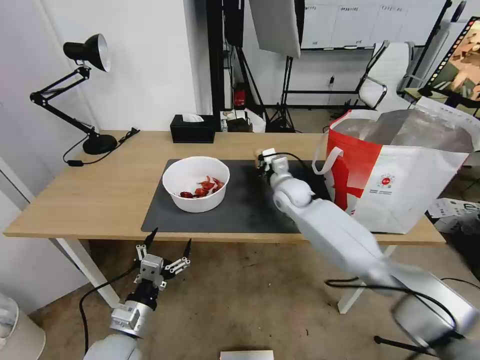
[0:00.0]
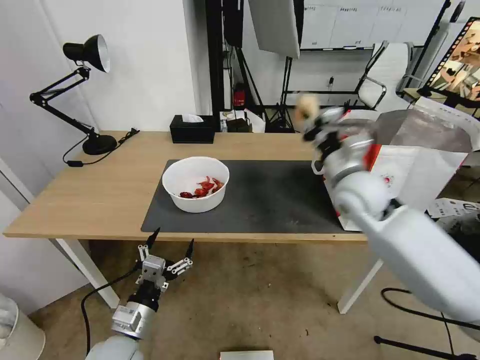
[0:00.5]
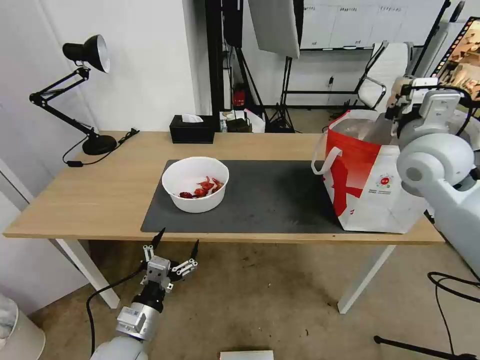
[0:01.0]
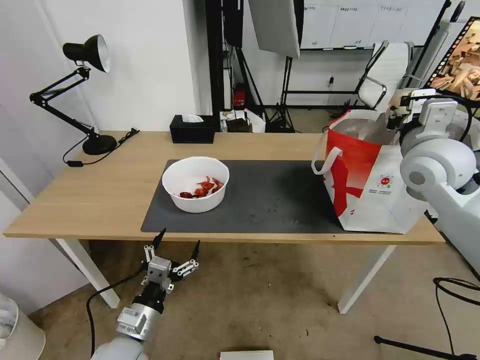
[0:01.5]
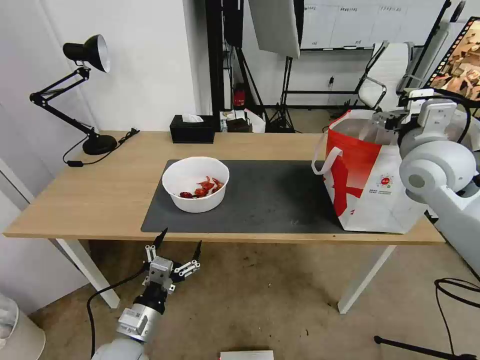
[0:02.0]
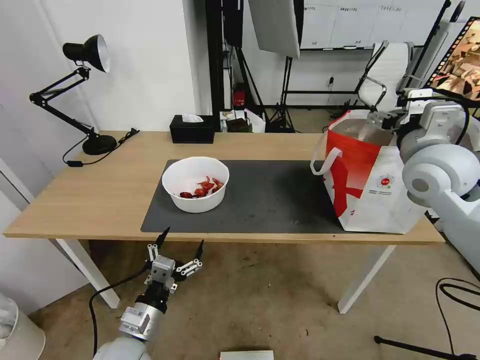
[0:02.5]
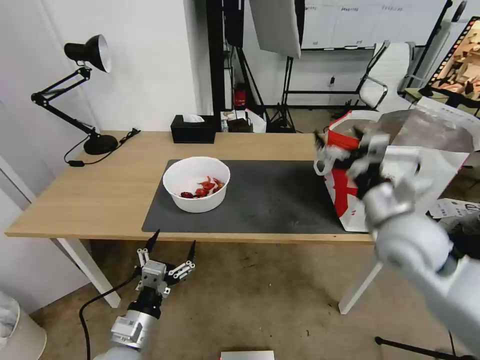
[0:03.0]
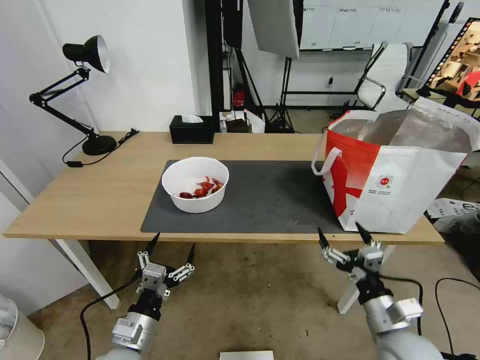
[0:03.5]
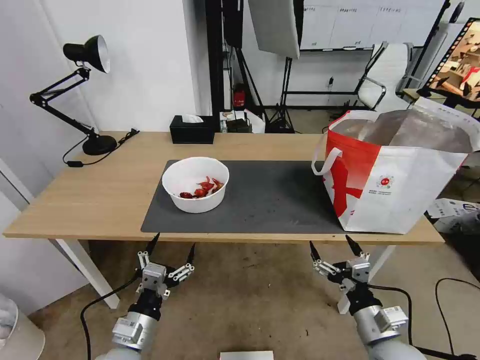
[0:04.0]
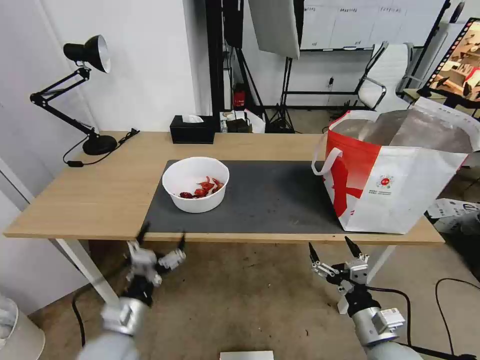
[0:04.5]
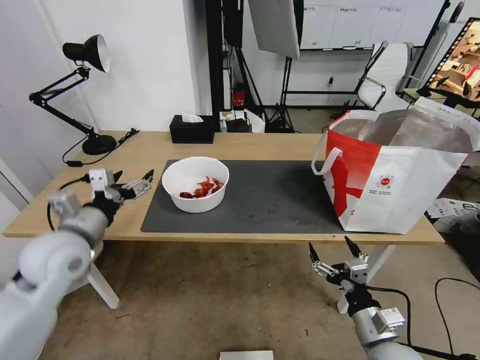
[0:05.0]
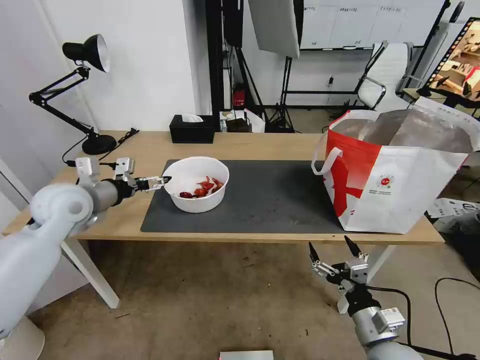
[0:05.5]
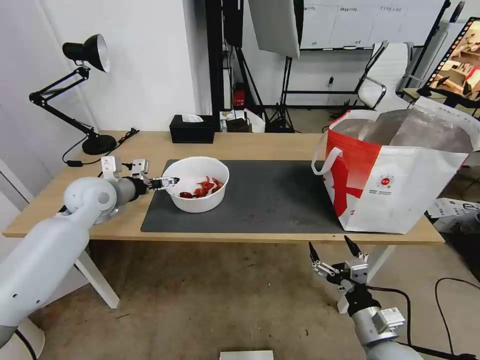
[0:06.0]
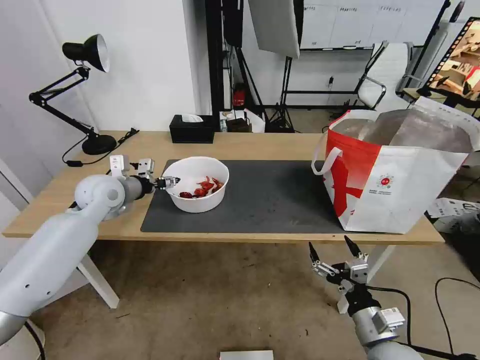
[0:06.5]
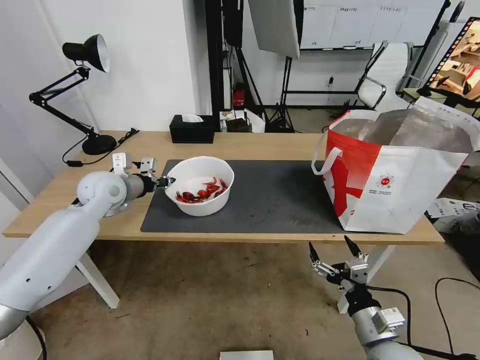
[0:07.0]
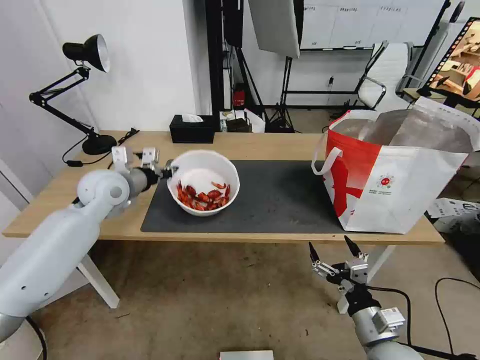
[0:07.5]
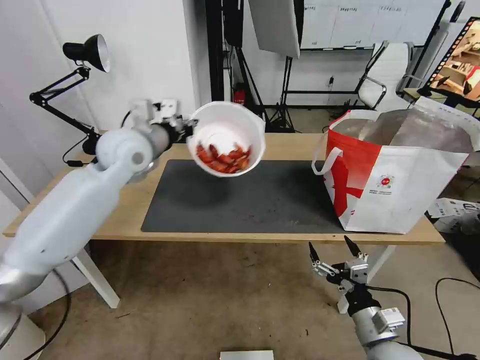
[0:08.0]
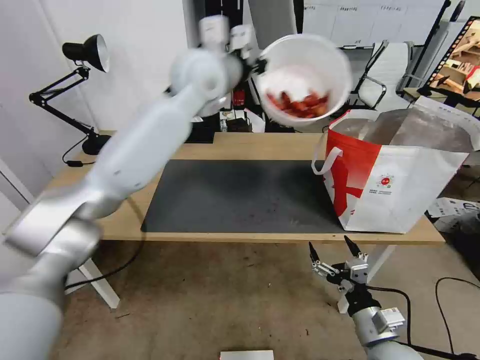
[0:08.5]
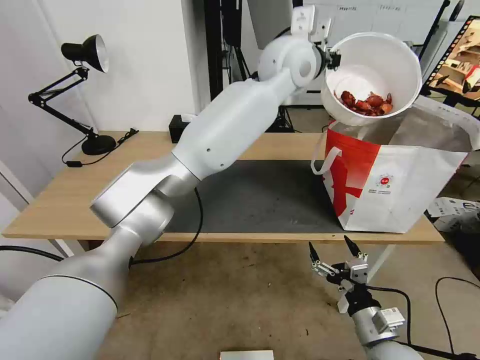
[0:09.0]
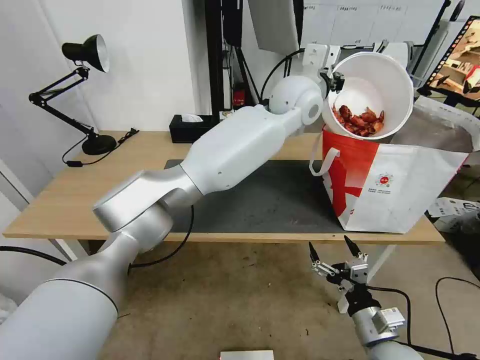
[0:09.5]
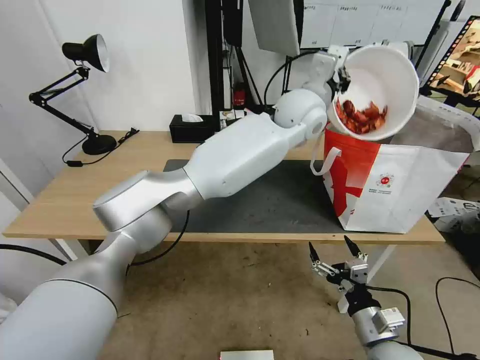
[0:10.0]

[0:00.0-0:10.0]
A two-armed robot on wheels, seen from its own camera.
Task of the whole recording: Pick up the trash from the table and place it into the takeout bag.
0:00.0 to 0:02.0: The right gripper moves upward, to the right and backward, some 30 cm, and opens.
0:02.0 to 0:04.0: The right gripper goes about 35 cm downward and backward.
0:04.0 to 0:06.0: The left gripper shifts roughly 35 cm forward and upward.
0:06.0 to 0:08.0: The left gripper is displaced upward and to the right by some 15 cm, and closes.
0:08.0 to 0:10.0: The left gripper goes approximately 35 cm to the right.

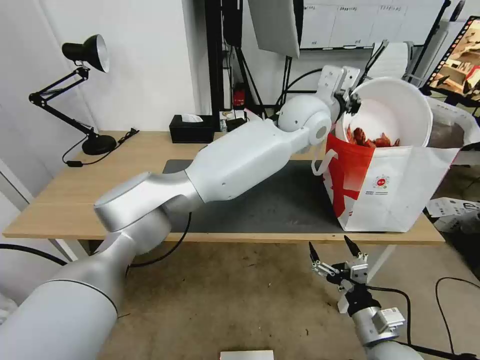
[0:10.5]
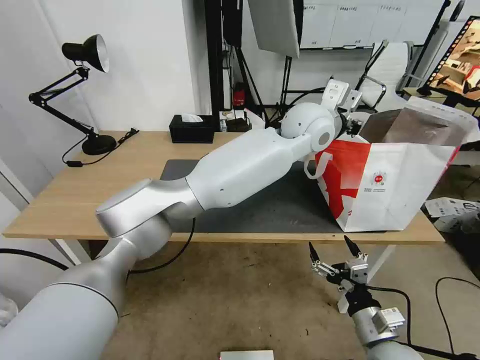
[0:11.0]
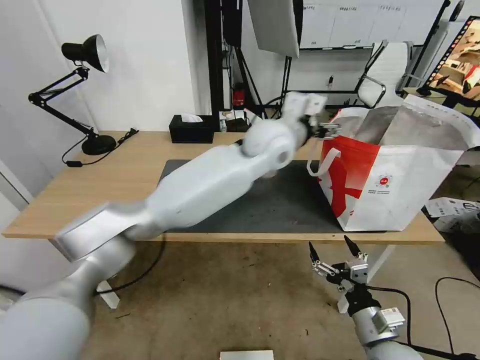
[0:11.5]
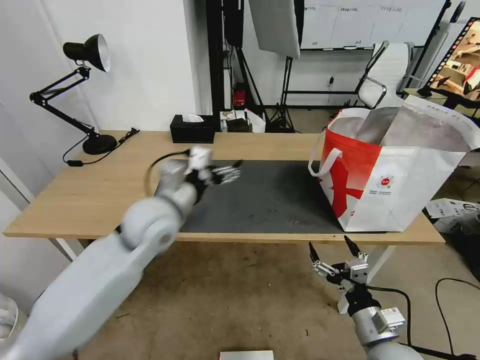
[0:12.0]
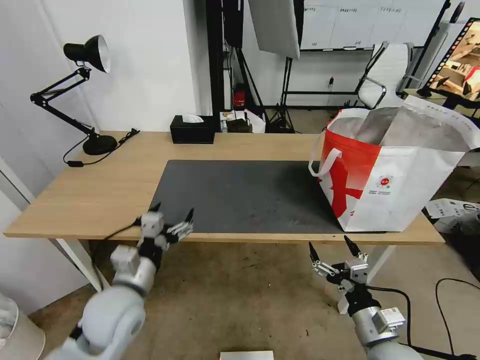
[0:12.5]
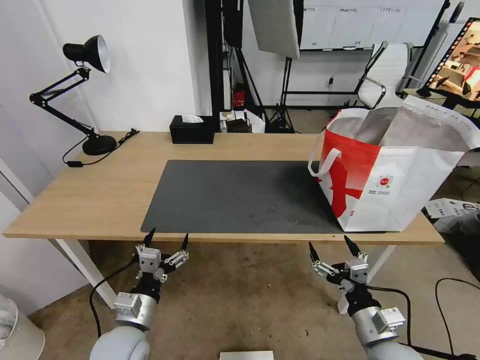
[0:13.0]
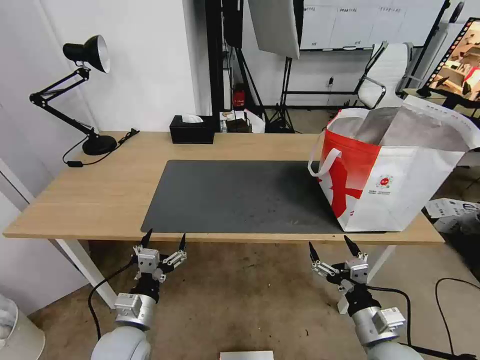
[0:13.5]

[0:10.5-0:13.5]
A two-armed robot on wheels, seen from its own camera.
Task of the whole recording: Pick up the trash from the table and place it into the takeout bag.
0:10.5 to 0:12.0: The left gripper is displaced to the left, backward and downward by about 35 cm, and opens up.
0:12.0 to 0:13.5: The left gripper travels downward and backward by some 25 cm.
